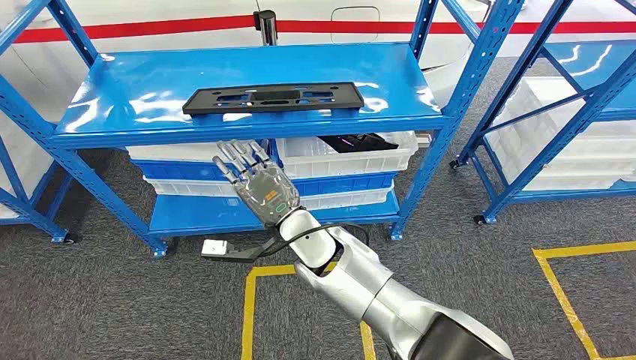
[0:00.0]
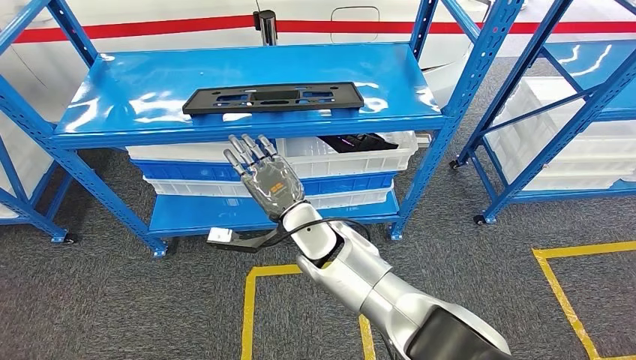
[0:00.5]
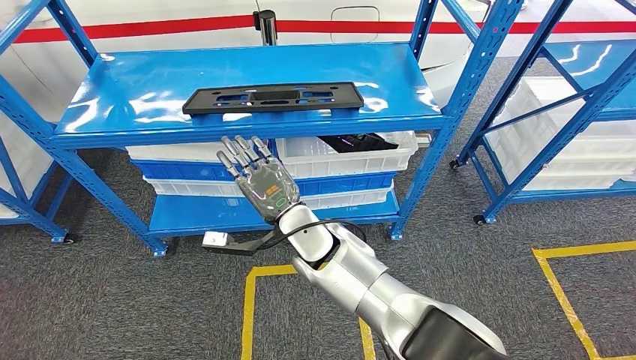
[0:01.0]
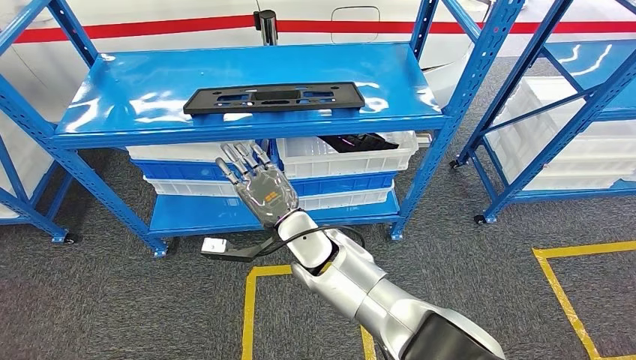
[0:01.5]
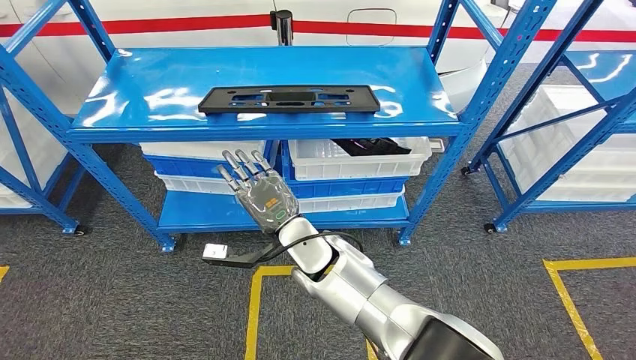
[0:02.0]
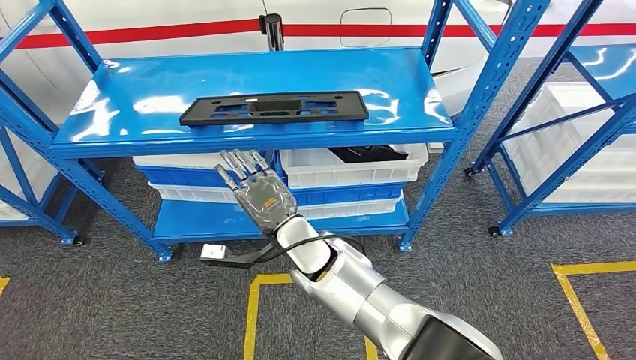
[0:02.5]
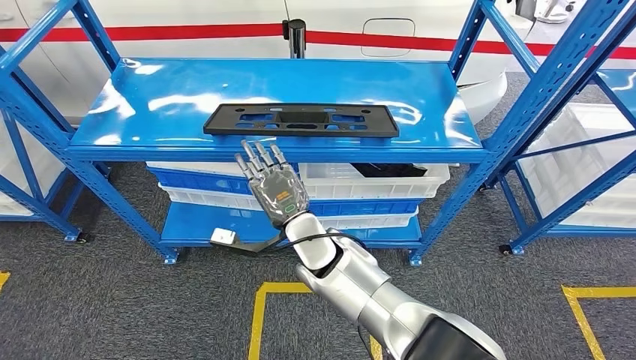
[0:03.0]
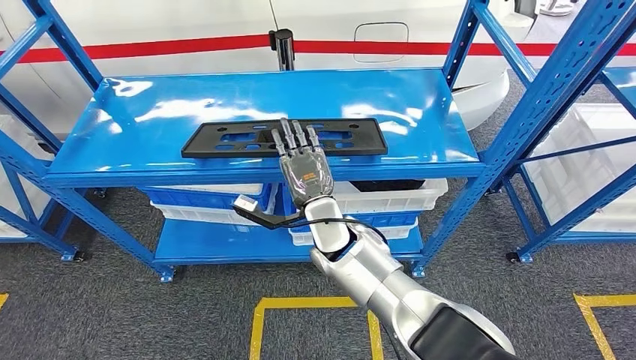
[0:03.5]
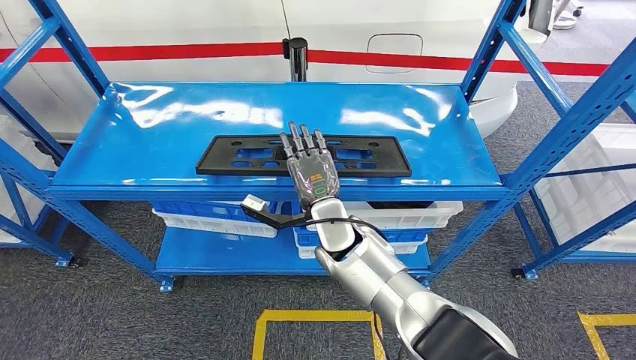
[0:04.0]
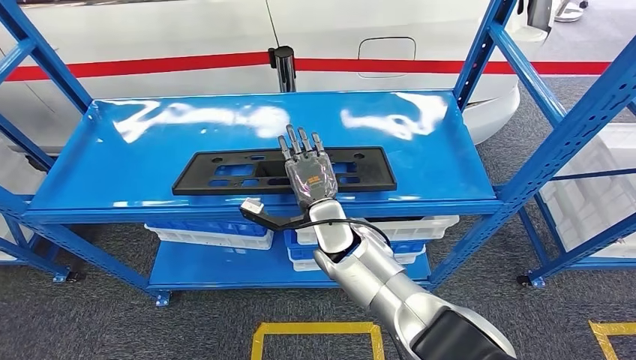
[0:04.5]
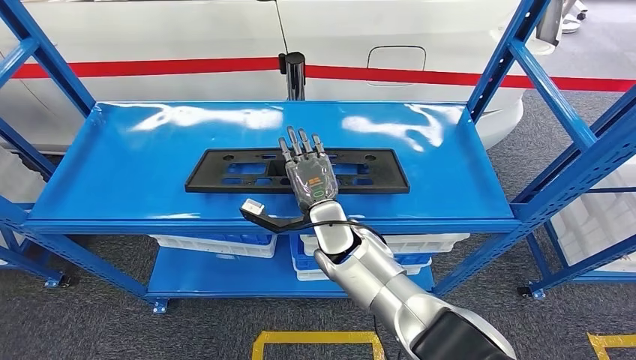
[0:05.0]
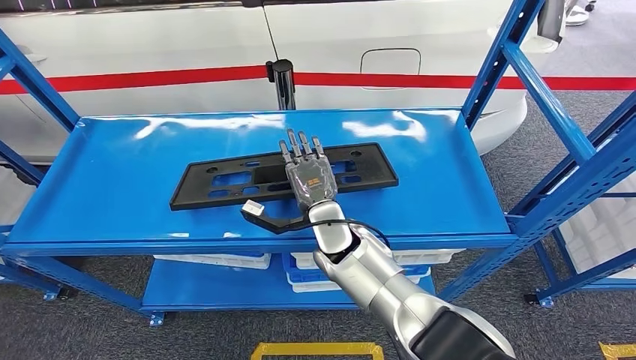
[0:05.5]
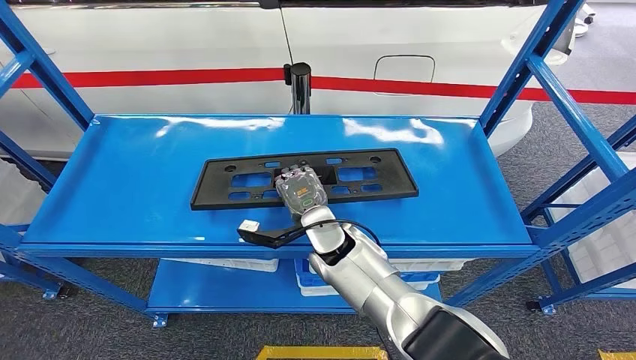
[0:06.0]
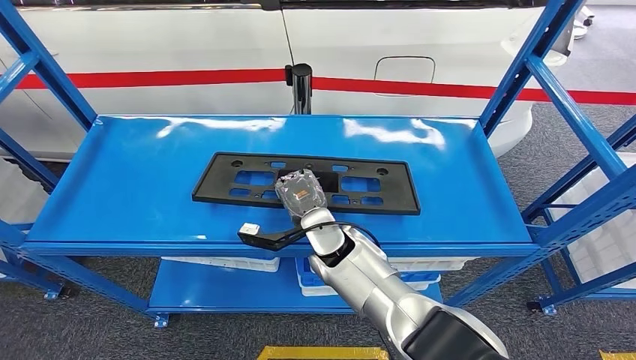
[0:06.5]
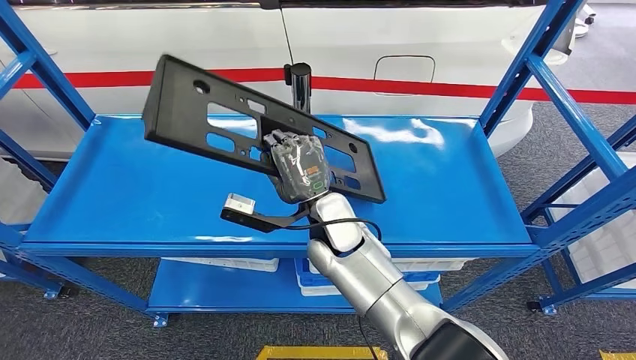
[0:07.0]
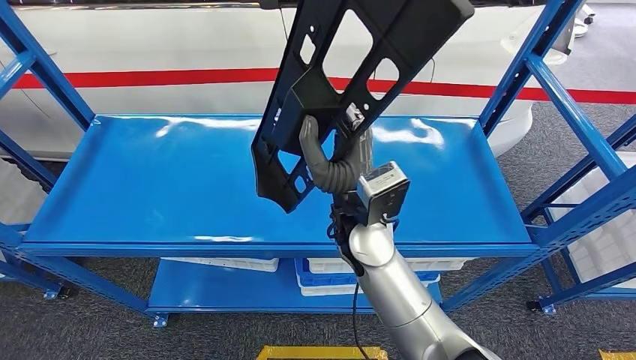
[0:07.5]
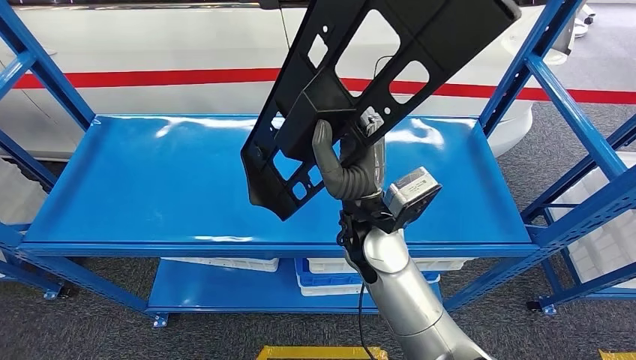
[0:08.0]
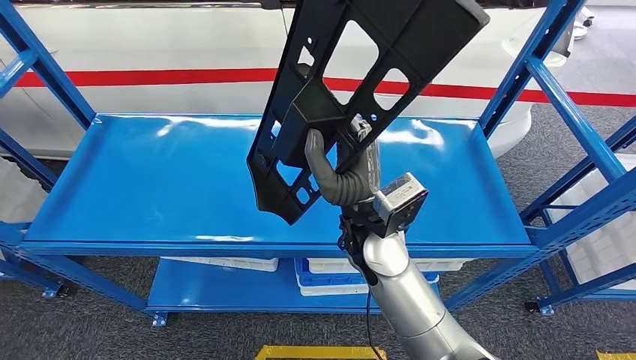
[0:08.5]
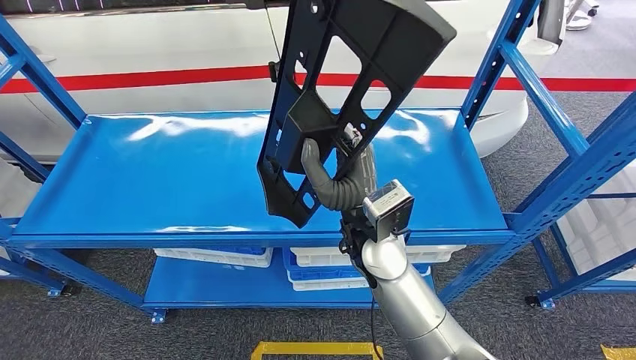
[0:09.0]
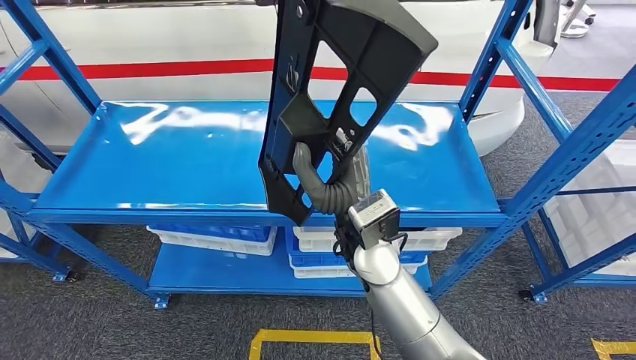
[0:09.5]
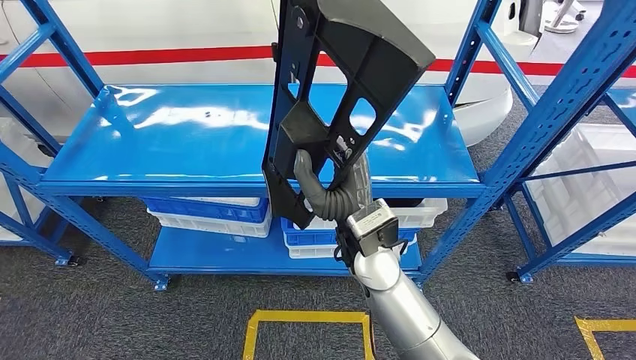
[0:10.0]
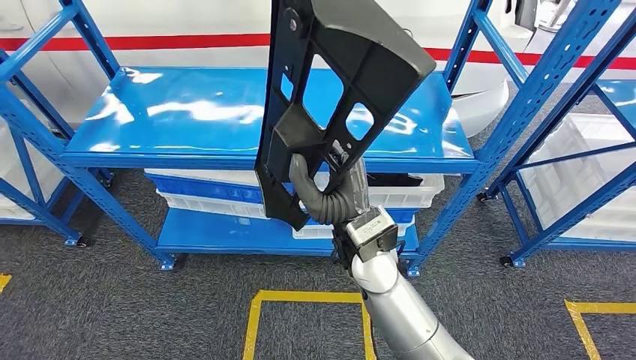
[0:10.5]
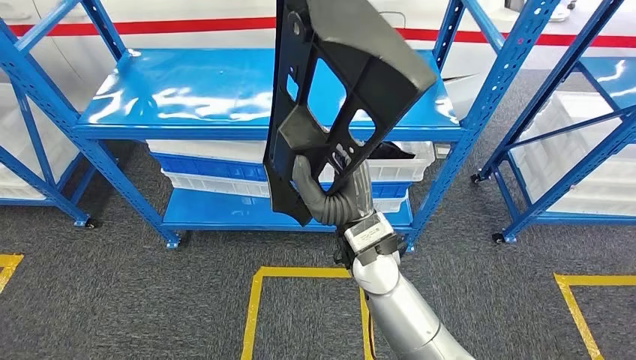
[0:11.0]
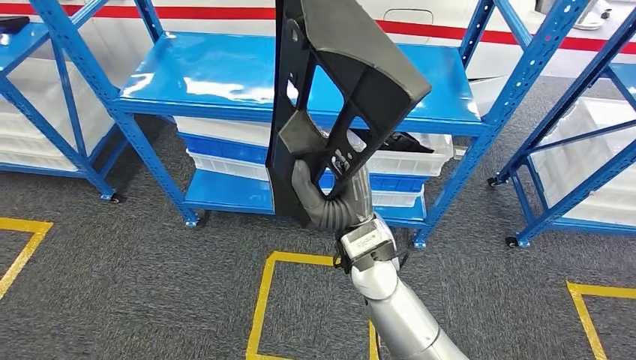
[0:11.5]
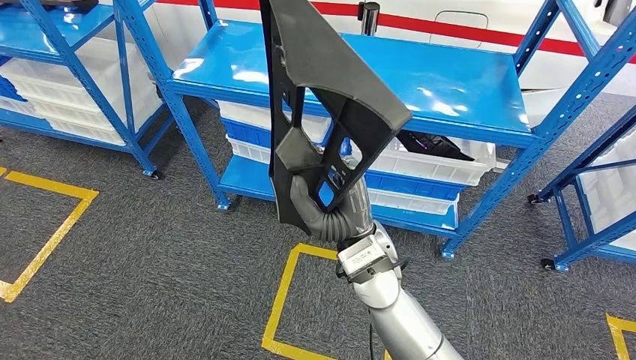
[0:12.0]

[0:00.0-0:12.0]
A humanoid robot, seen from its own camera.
Step, 0:00.0 to 0:11.0: Pick up the large material from the shelf.

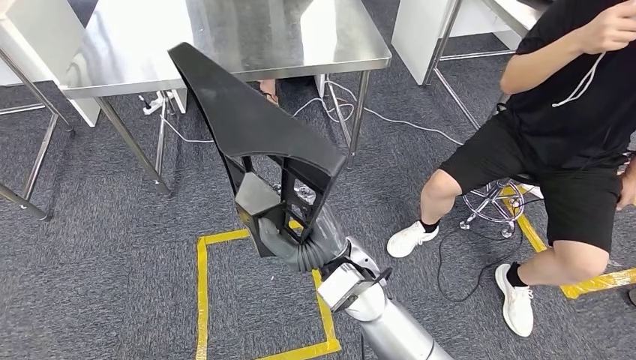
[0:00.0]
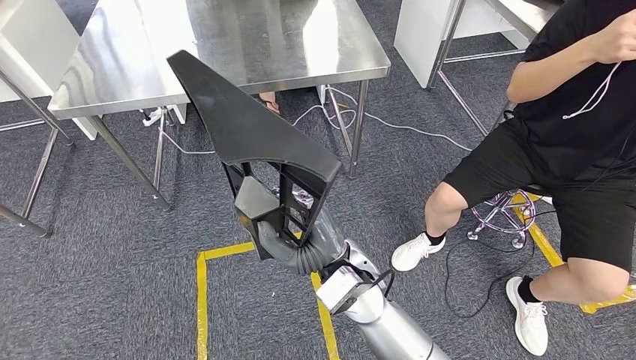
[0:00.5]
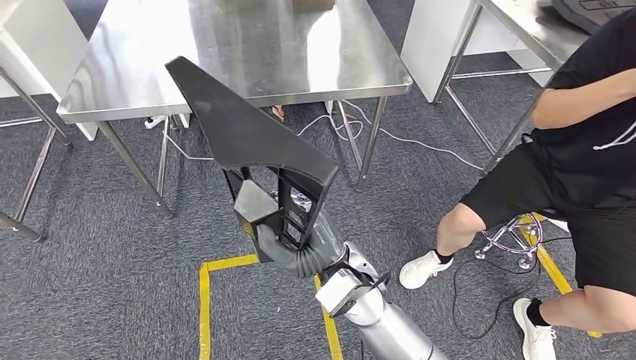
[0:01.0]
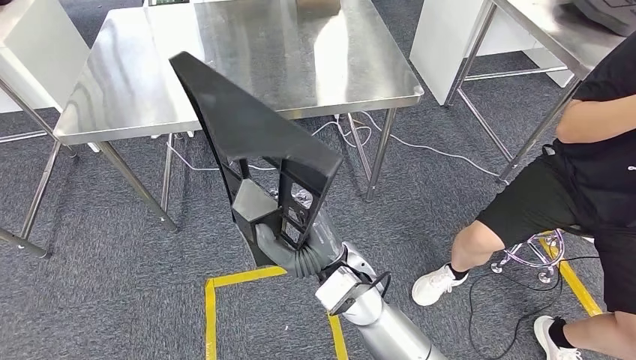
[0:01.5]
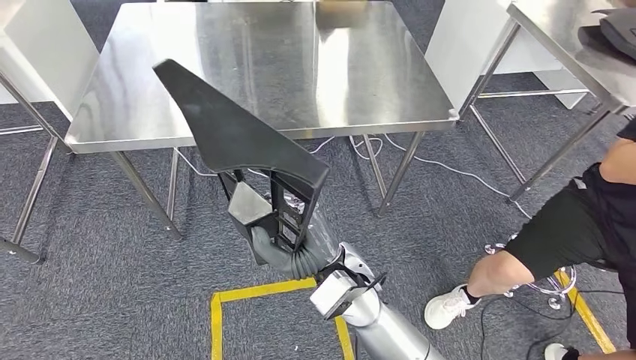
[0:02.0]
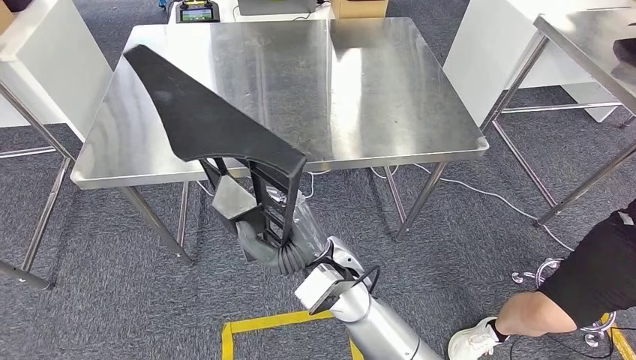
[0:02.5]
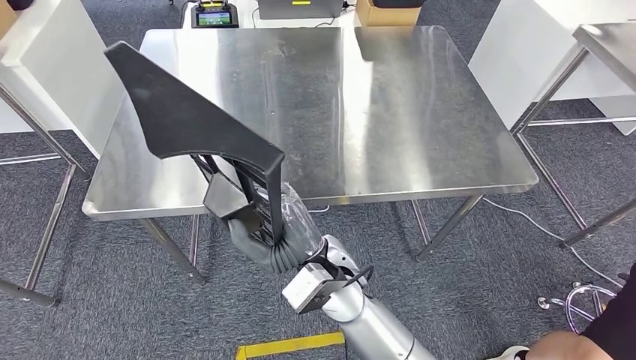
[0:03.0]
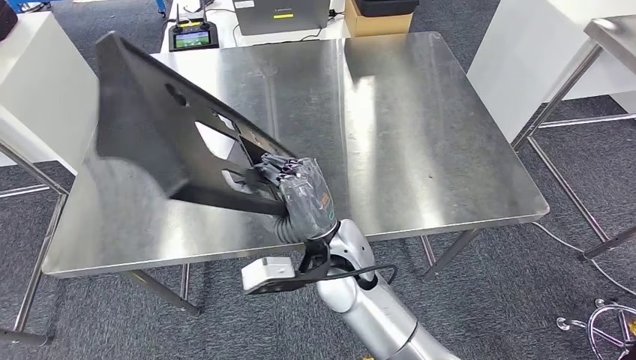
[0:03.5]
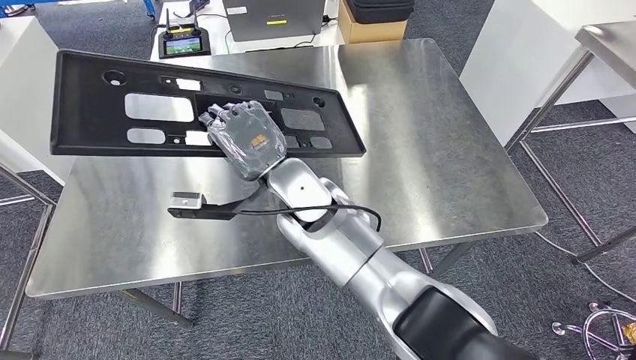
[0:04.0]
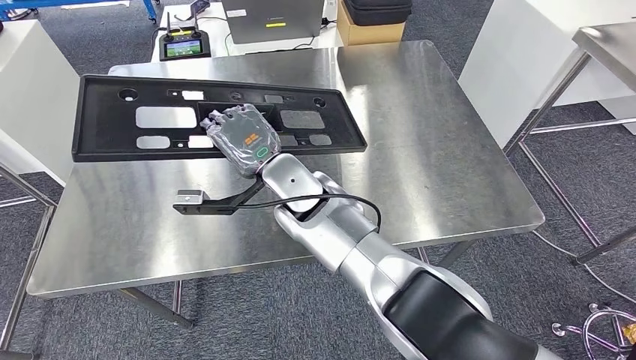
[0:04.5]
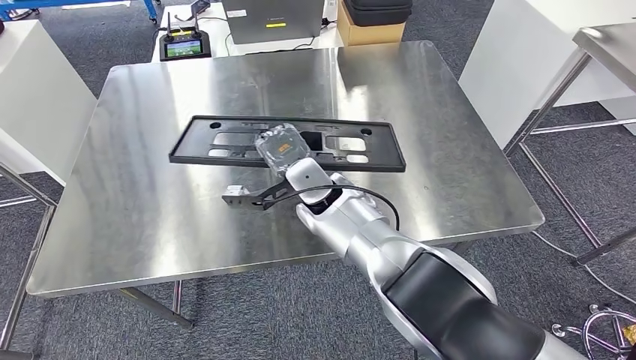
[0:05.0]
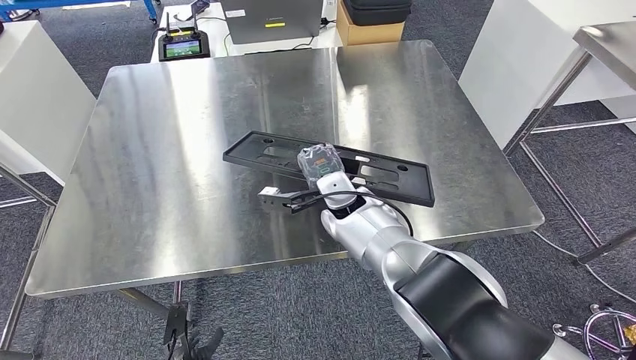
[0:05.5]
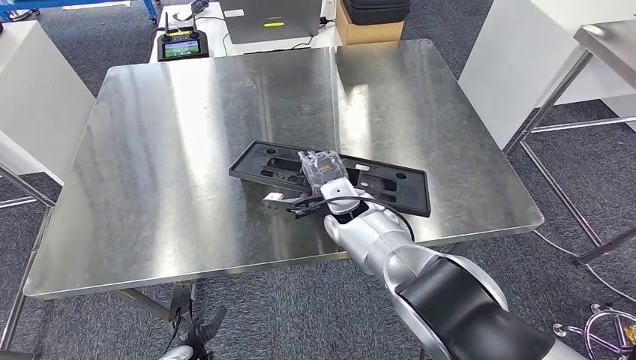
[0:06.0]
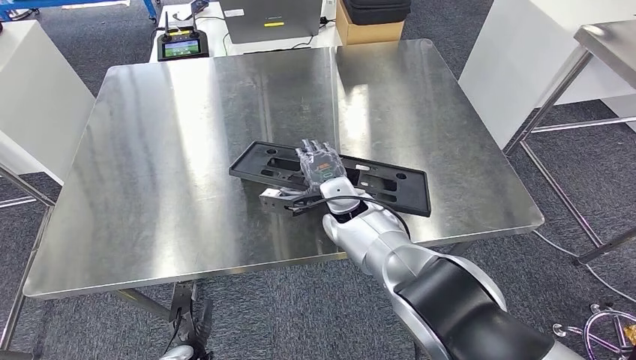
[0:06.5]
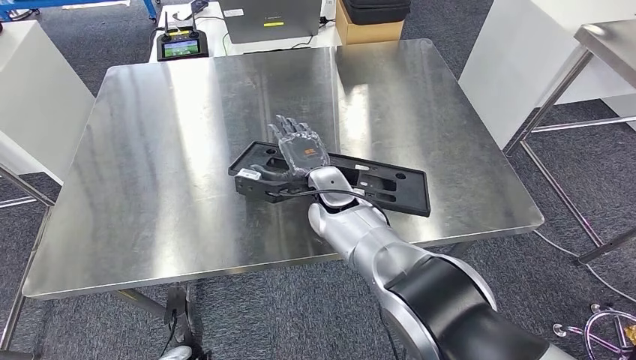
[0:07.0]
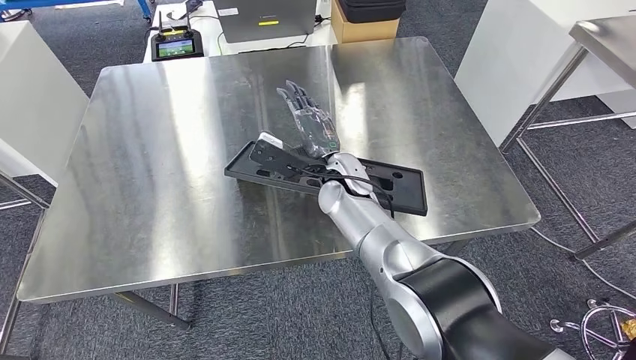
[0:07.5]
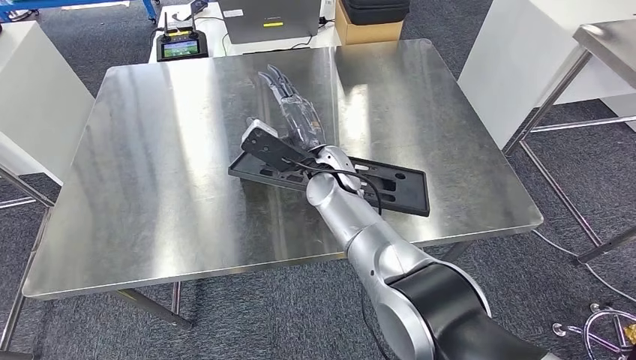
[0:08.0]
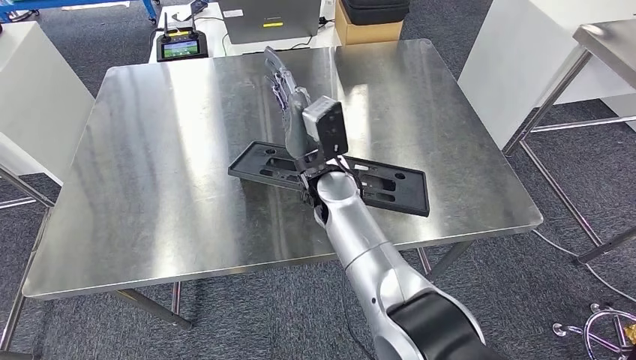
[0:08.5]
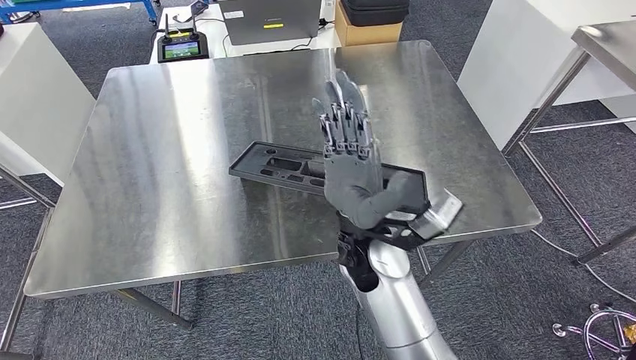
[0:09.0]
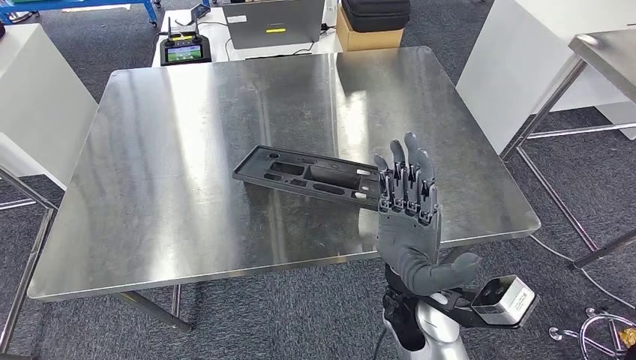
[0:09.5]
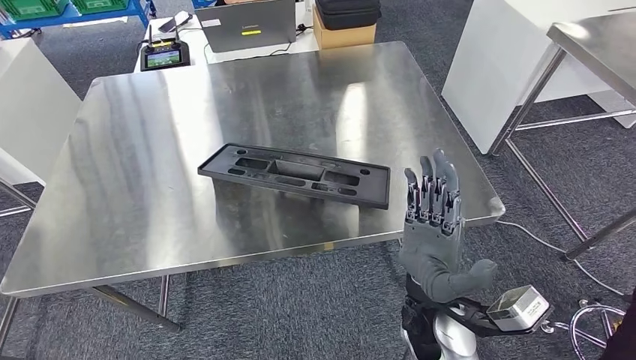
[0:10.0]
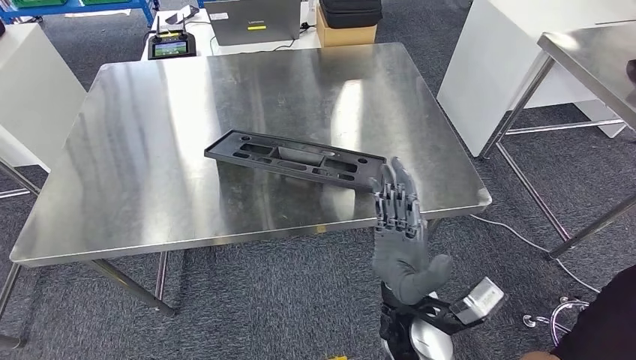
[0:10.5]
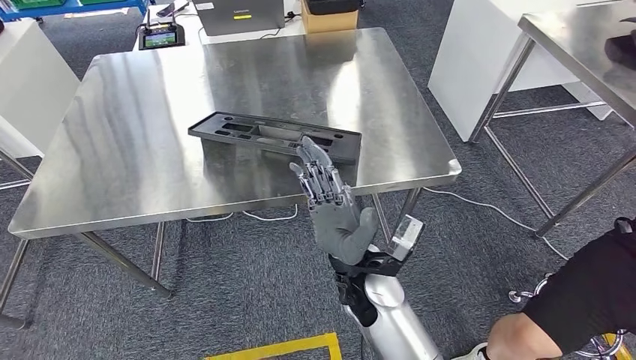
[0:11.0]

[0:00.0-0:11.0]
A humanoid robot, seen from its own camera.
Step, 0:00.0 to 0:02.5: Move the large material to the workbench.
